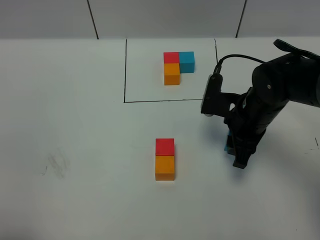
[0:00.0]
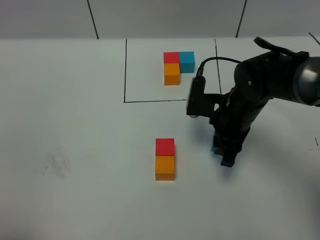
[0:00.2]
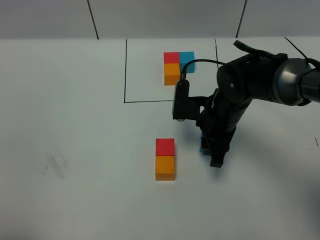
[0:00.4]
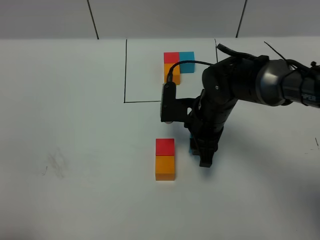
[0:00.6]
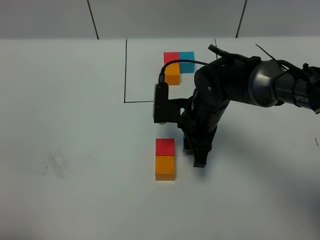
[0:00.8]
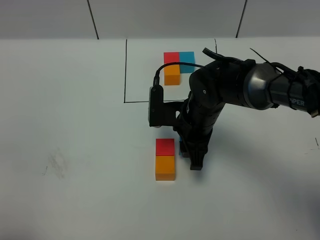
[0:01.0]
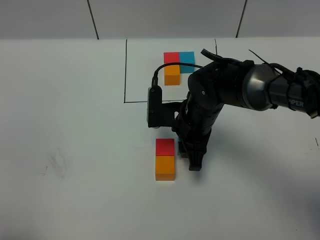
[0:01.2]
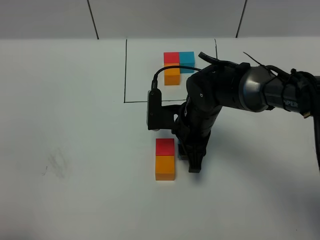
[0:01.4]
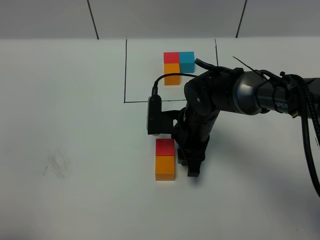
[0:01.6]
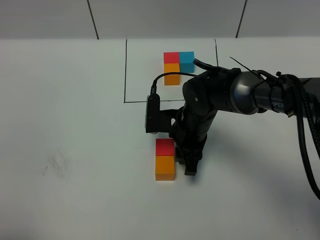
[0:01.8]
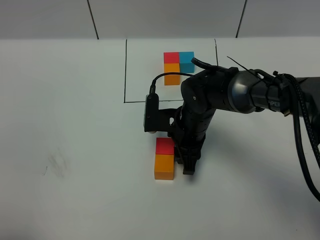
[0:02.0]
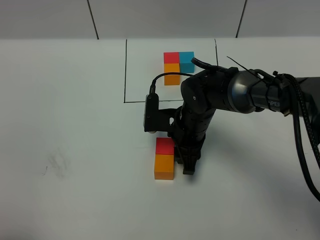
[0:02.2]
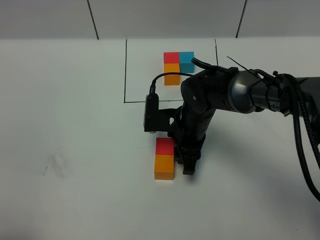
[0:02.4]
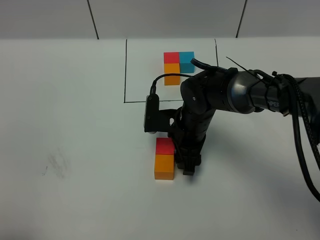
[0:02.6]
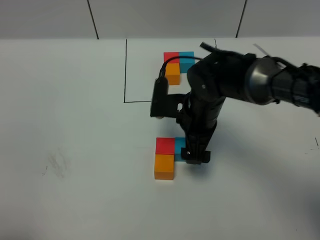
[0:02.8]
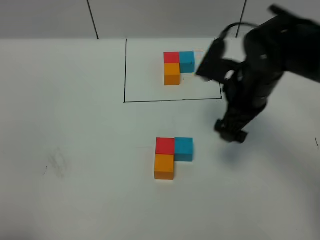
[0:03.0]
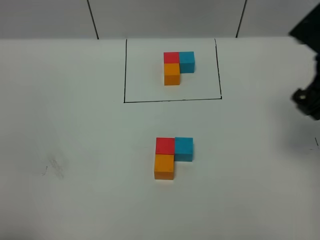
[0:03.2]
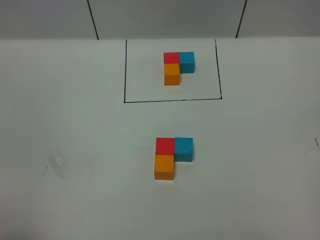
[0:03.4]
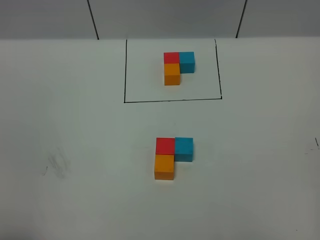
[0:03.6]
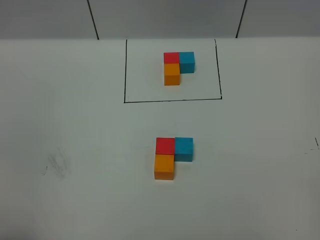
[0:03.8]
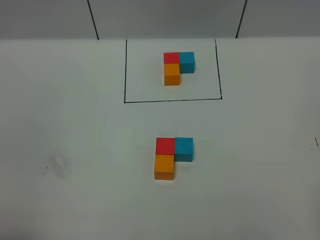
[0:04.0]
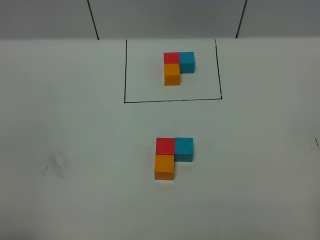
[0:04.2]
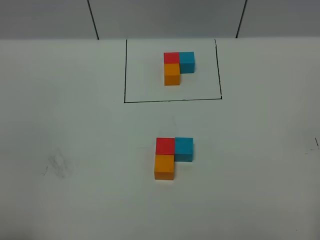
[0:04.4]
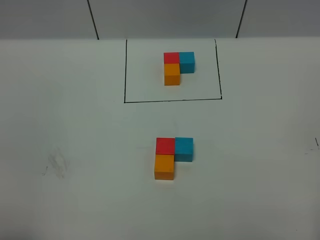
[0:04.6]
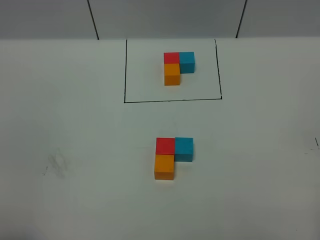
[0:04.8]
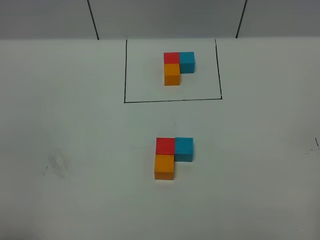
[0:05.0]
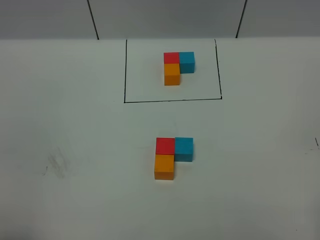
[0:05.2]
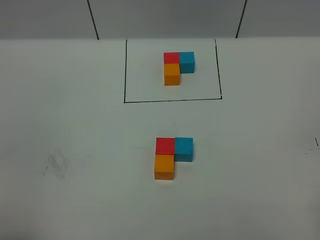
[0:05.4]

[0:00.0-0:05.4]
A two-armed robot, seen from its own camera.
Task of the whole recording: According to the building block template in front, assemble the scattered blocks together.
Step, 0:00.0 to 0:02.6: Put the blue cube on the right of the red cube.
0:00.0 to 0:01.4: The right gripper is displaced to the left by about 10 cm.
0:01.4 to 0:02.8: The right gripper opens up.
0:02.8 to 0:04.0: The right gripper shifts some 40 cm backward, to the right and upward.

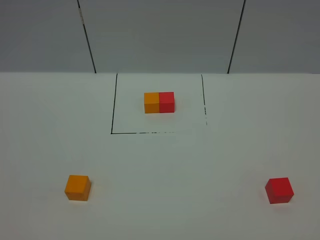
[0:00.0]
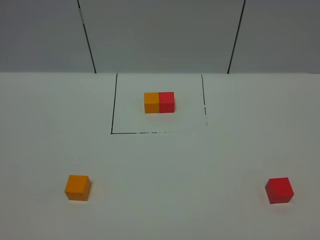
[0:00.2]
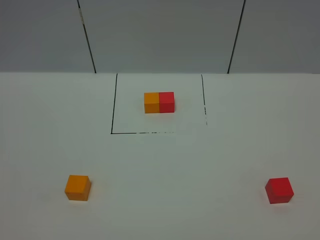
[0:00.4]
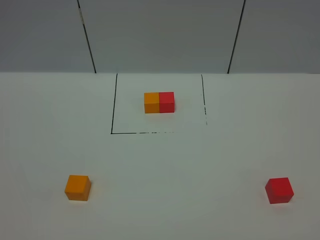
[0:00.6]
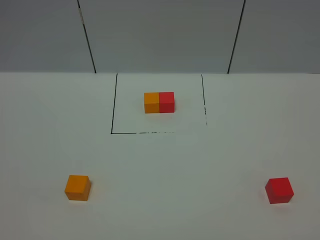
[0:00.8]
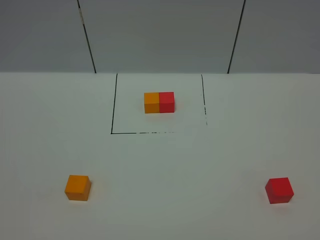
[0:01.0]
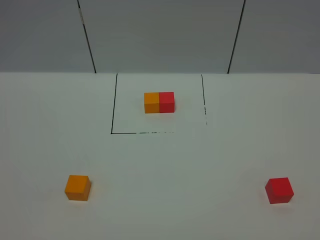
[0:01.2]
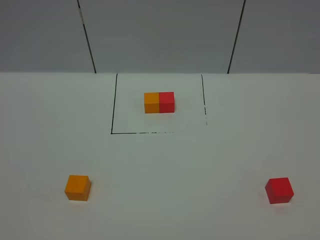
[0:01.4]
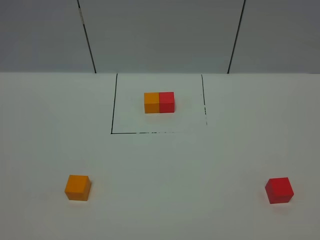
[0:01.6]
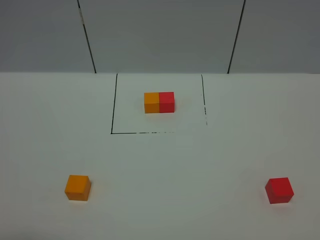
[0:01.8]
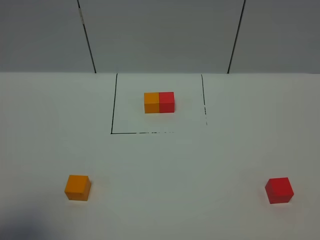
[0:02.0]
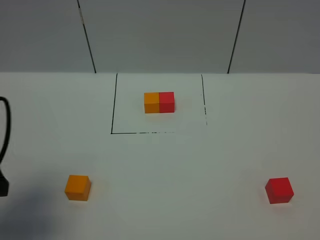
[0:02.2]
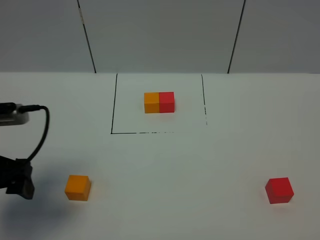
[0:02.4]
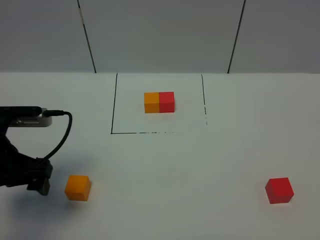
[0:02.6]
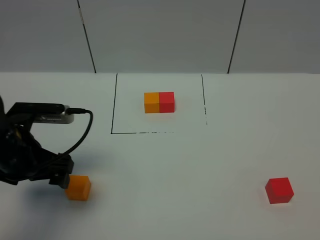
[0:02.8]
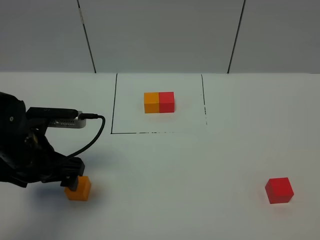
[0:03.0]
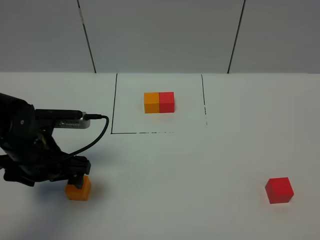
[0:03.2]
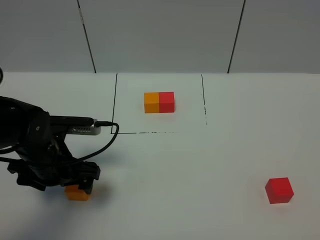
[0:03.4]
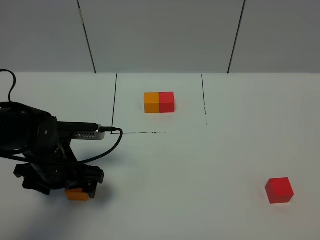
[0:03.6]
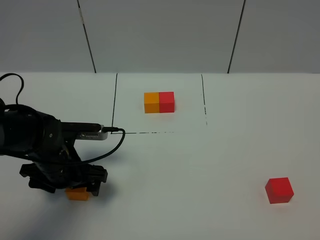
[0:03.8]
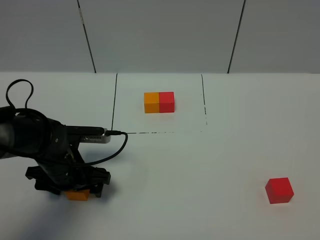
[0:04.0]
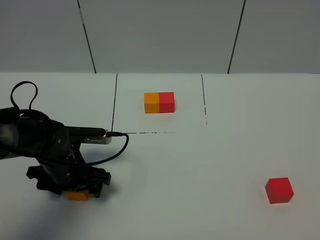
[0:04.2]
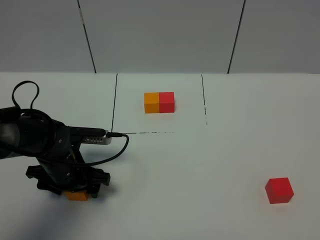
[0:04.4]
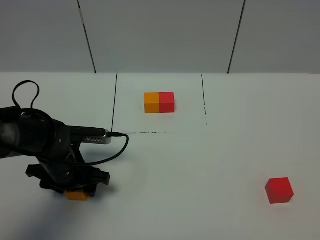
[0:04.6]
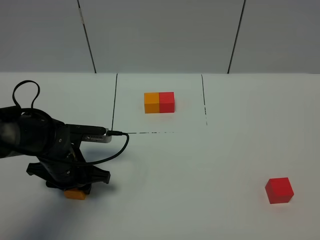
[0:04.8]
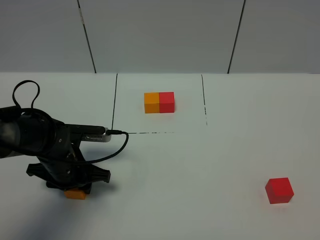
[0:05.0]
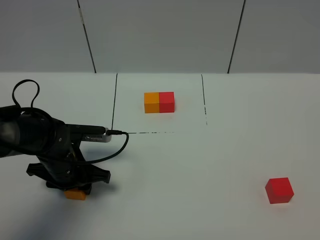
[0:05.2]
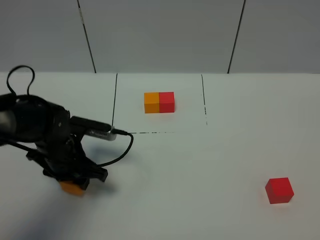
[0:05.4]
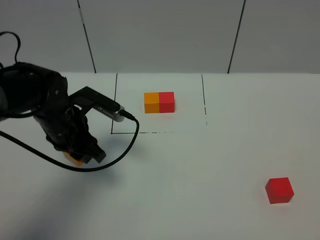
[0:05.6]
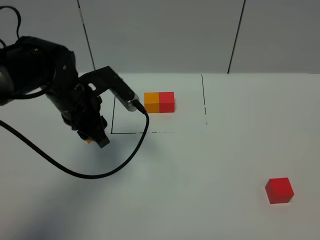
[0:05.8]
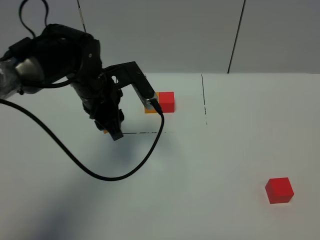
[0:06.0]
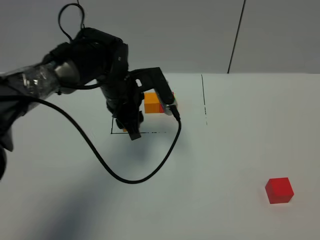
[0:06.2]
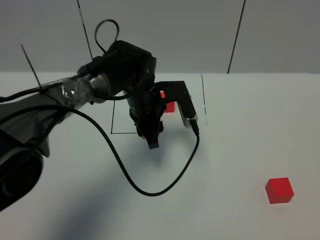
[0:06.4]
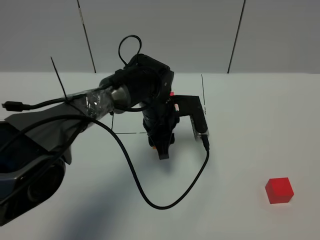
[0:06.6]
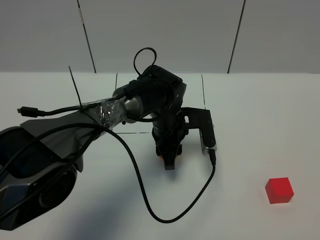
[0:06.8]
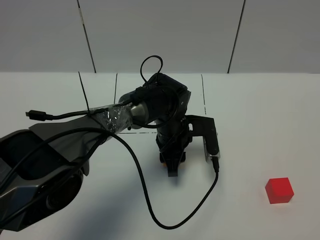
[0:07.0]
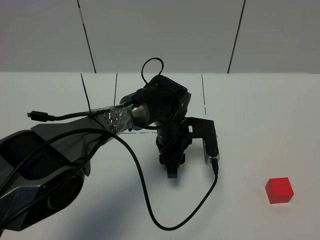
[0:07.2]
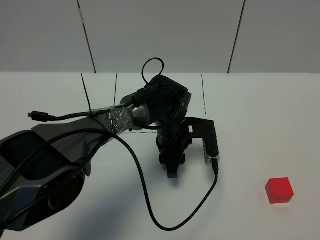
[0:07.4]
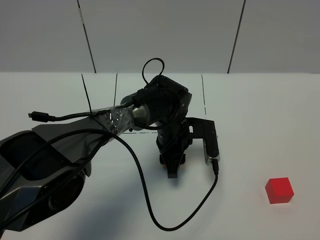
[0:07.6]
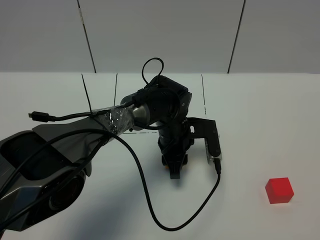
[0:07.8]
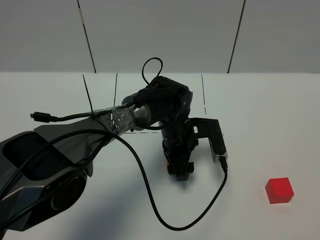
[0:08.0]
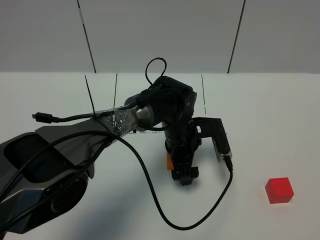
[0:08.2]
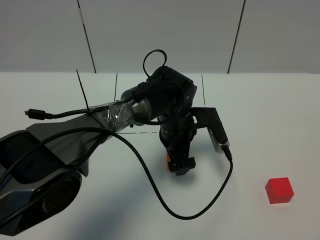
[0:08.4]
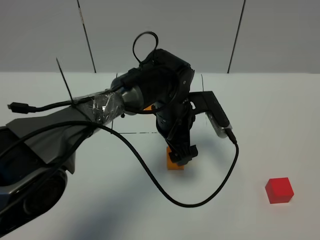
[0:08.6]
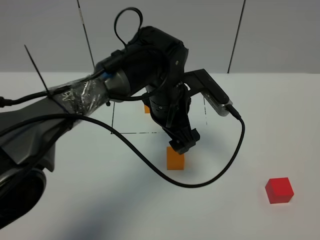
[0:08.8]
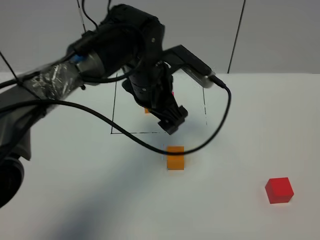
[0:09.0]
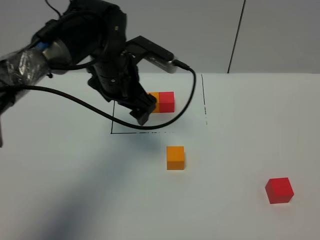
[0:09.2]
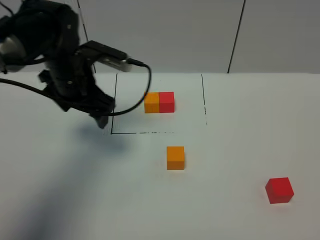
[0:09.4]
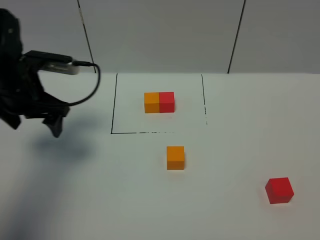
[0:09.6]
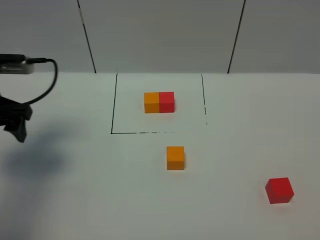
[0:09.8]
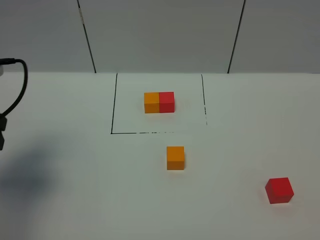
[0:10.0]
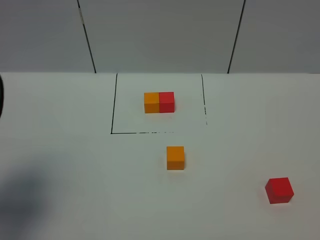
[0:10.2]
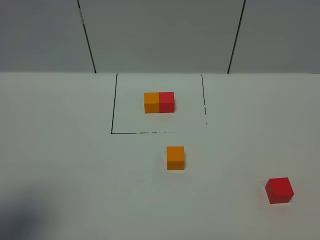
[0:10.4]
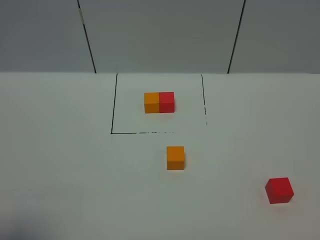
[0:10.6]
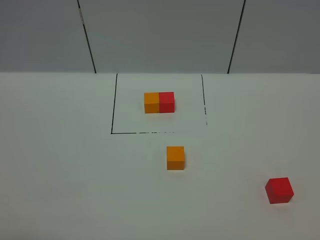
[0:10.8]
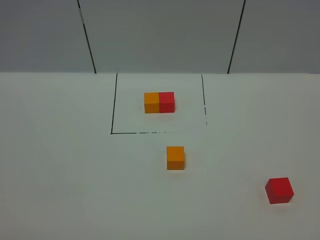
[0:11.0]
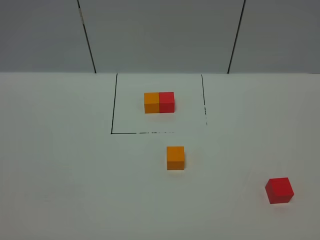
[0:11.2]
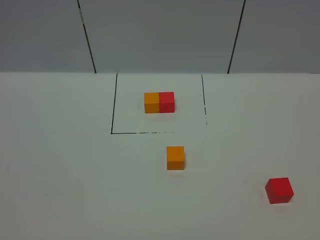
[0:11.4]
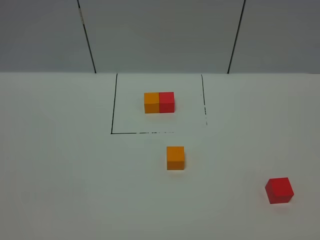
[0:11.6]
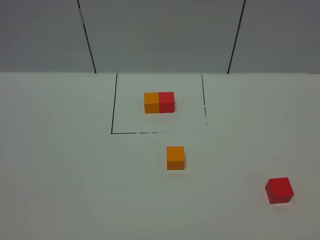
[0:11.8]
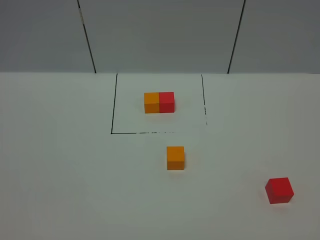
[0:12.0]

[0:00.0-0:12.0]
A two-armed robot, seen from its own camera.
Task of the whole recording: According to the building block template in front, assemble the scattered blocks together.
Step, 0:02.2 to 0:08.8: Put the orange cube in the center of the table.
0:01.6 to 0:03.0: The left gripper shifts some 25 cm forward.
0:03.0 to 0:04.4: The left gripper shifts some 10 cm downward.
0:04.4 to 0:06.0: The left gripper shifts approximately 15 cm upward, forward and to the right, and closes its fingers.
0:06.0 to 0:07.6: The left gripper heads to the right and downward, covering some 20 cm.
0:07.6 to 0:09.0: The left gripper moves upward, some 15 cm, and opens.
0:09.0 to 0:10.4: The left gripper shifts approximately 40 cm to the left and backward.
0:10.4 to 0:12.0: The left gripper is displaced backward and downward by approximately 15 cm.

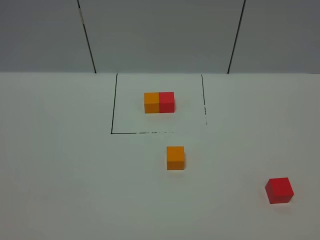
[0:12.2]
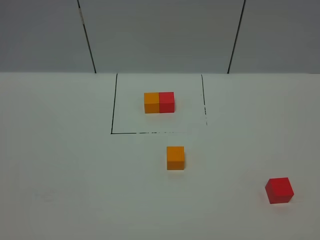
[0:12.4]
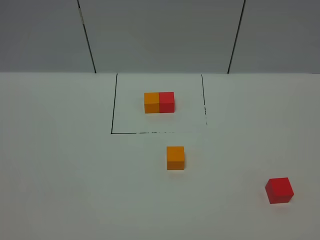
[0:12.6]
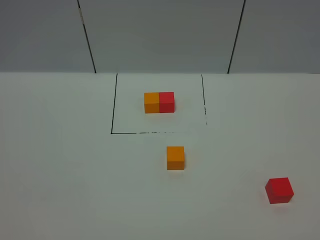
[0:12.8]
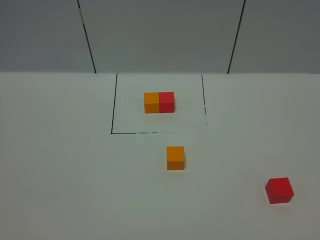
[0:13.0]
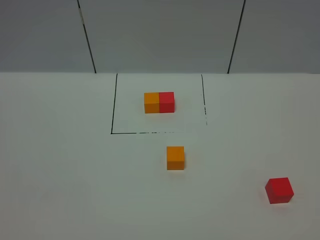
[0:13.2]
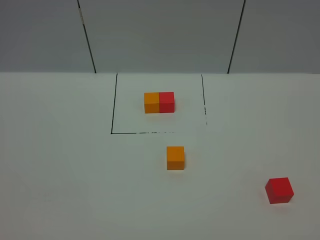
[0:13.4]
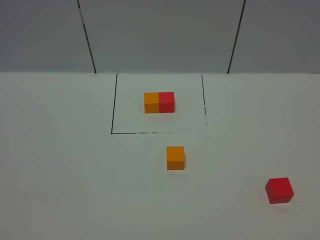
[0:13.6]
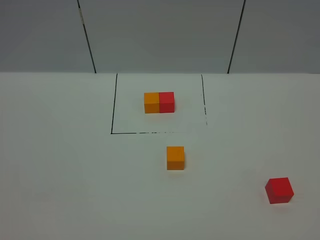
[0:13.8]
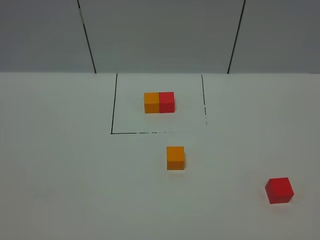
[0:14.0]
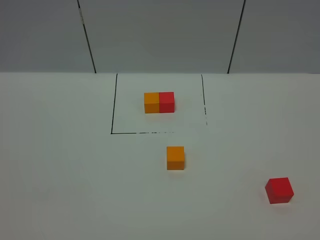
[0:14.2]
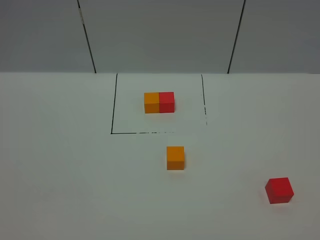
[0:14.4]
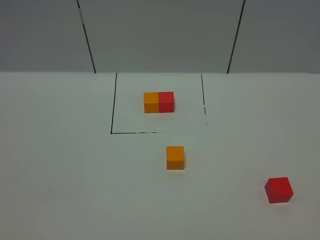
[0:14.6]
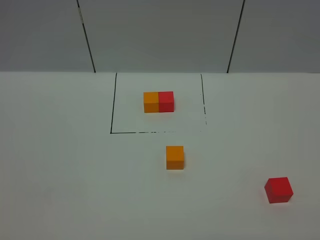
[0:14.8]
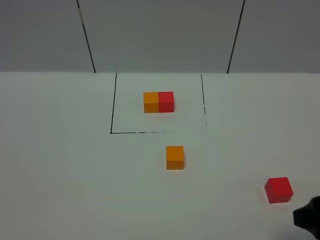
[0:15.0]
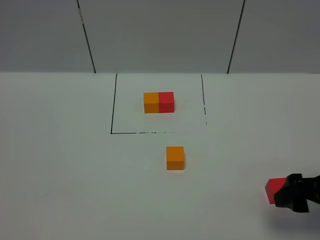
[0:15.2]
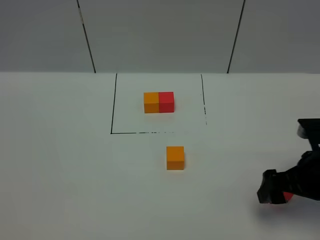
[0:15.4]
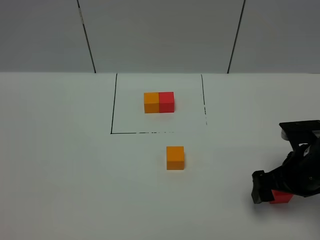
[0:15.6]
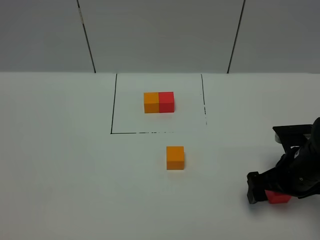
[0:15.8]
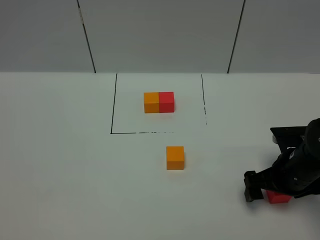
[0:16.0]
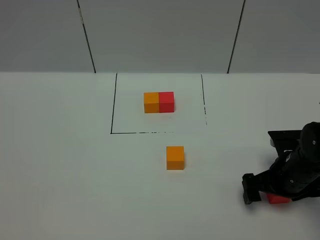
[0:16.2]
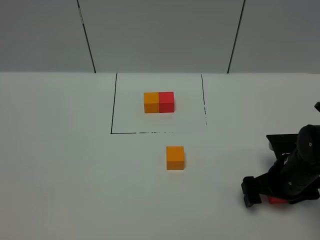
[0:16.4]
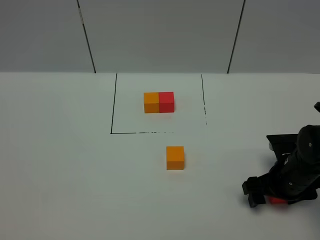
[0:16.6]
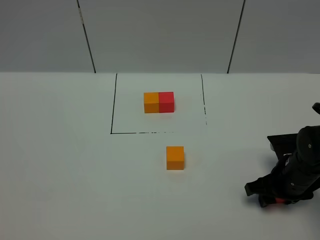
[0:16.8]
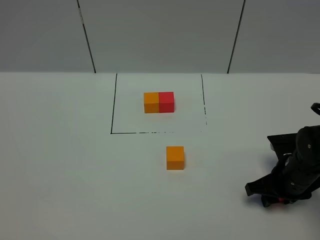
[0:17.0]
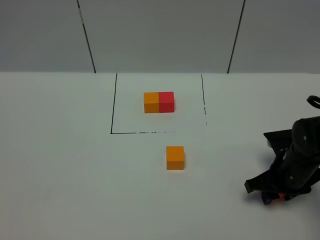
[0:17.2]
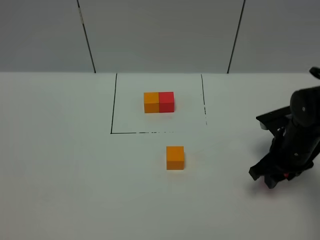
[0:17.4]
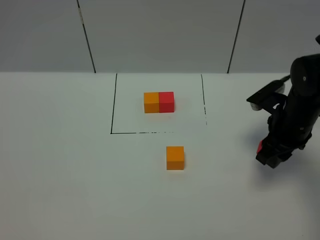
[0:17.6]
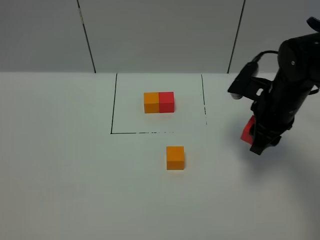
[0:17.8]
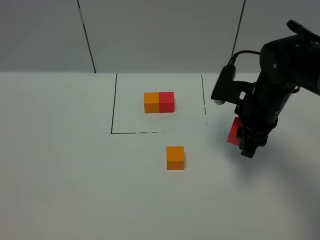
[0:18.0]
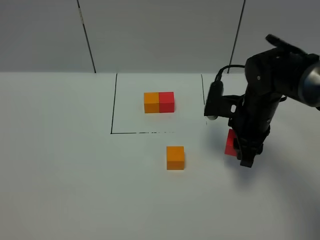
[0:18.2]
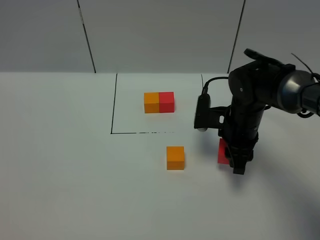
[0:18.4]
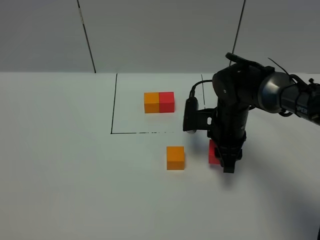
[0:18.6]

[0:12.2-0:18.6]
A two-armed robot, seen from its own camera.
Task of the whole recording: According to the building block template in front, assemble the scattered blocks together.
0:12.2 to 0:13.8: The two grippers keep their place.
0:13.8 to 0:15.4: The right gripper shifts some 25 cm forward.
0:15.4 to 0:17.0: The right gripper travels downward by roughly 10 cm, and closes.
0:17.0 to 0:18.6: The right gripper shifts approximately 15 cm to the left and forward.
